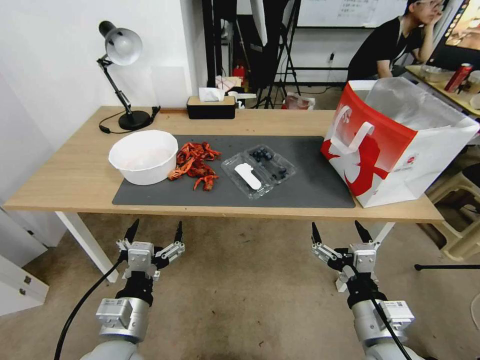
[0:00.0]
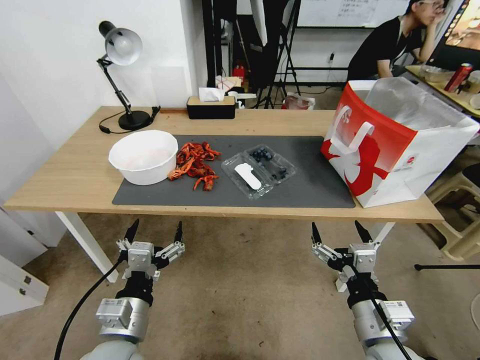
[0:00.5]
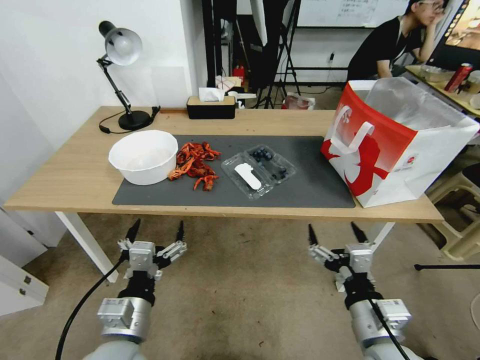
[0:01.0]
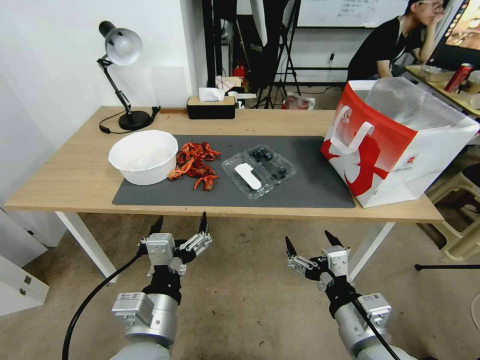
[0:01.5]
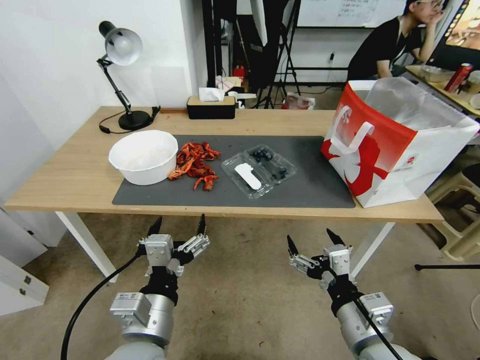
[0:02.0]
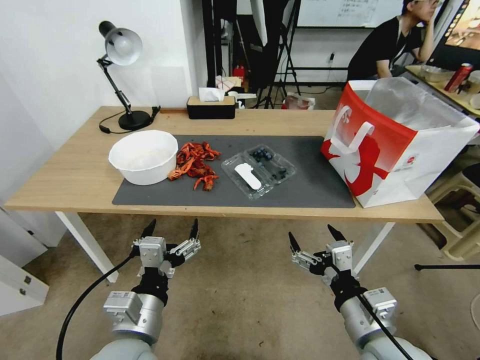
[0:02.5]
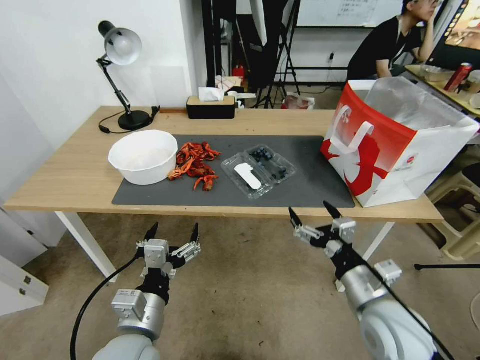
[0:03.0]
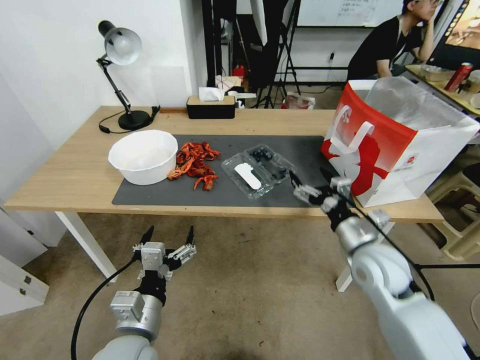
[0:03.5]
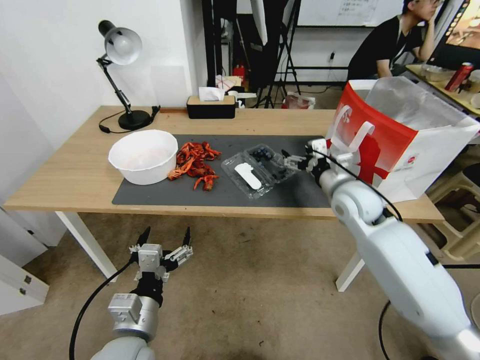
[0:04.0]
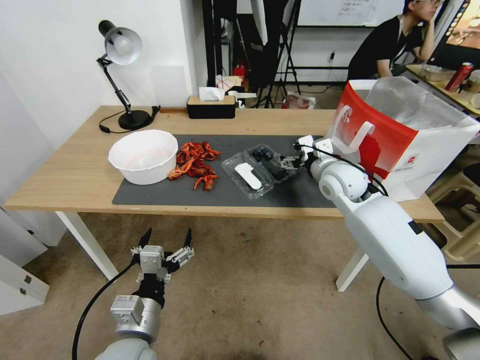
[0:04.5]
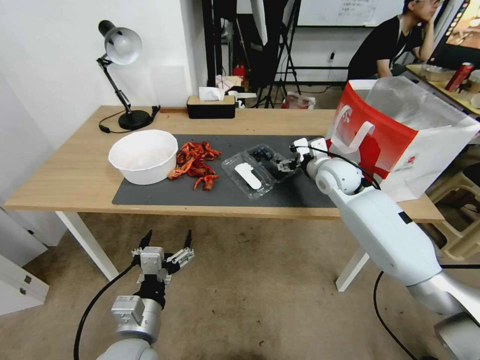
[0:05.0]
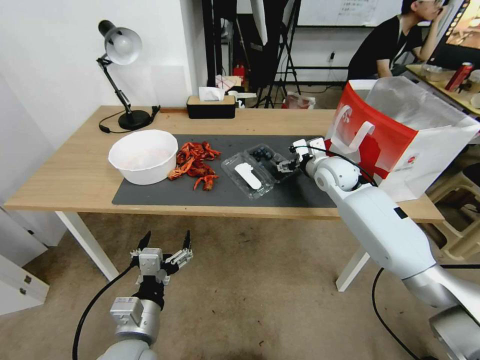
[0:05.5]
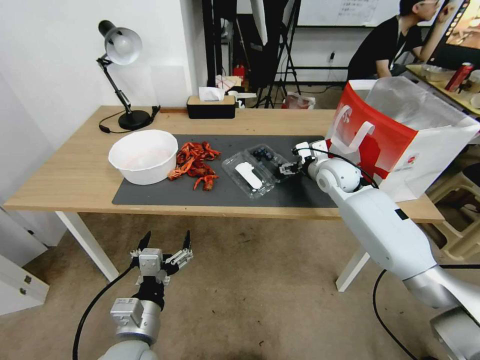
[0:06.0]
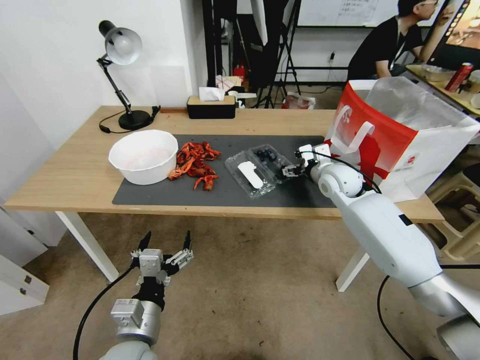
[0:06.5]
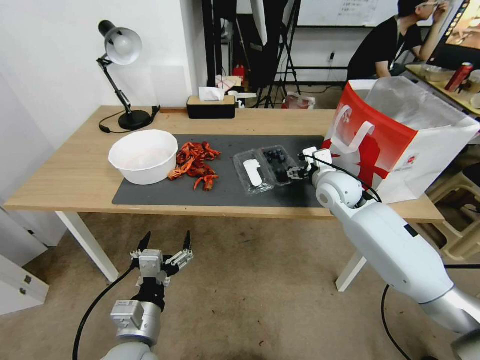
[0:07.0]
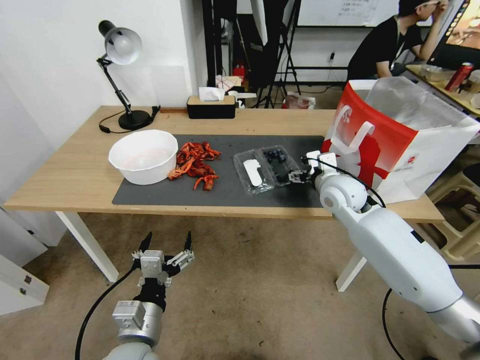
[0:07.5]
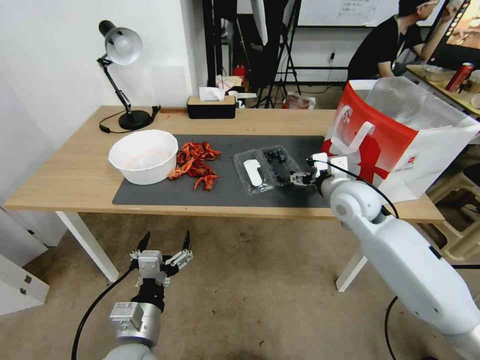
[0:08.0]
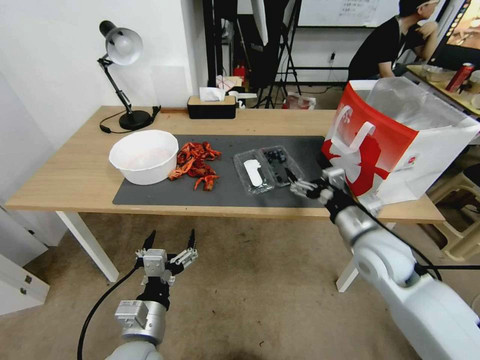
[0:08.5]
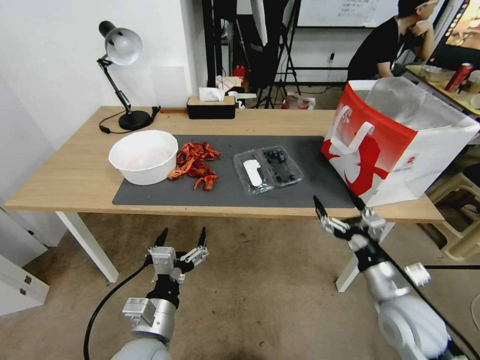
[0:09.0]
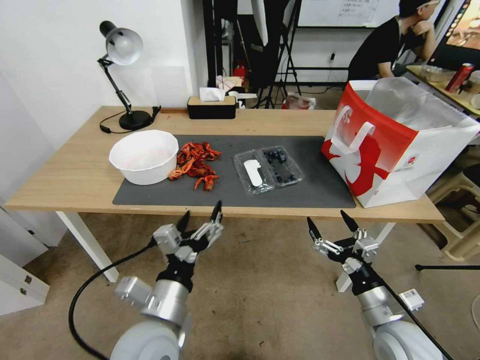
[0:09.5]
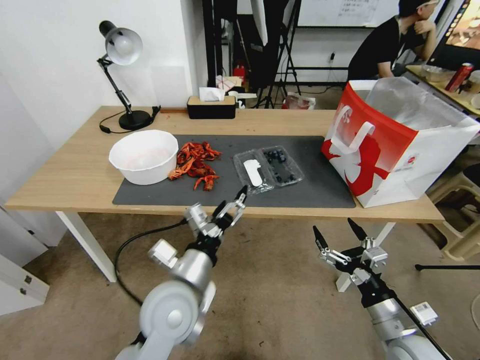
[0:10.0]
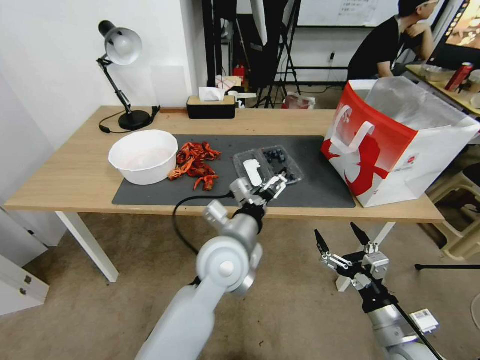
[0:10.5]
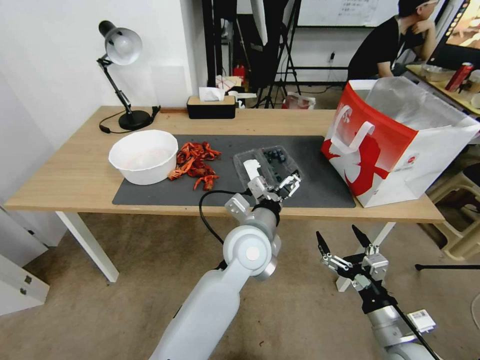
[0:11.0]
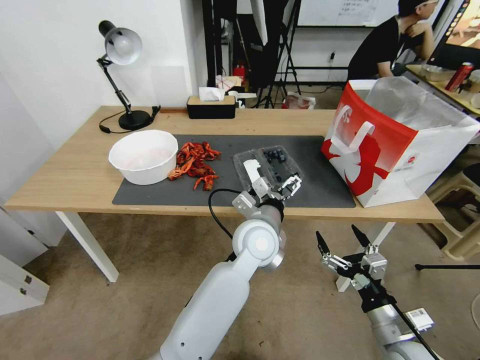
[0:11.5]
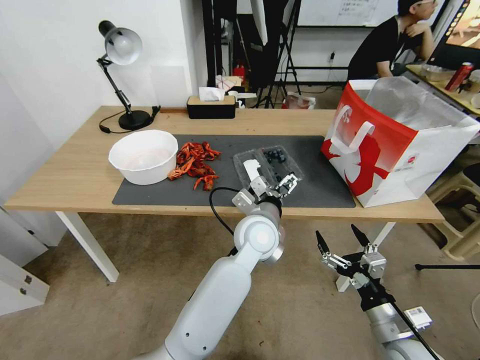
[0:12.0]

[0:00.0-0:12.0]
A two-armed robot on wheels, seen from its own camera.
Task of the whole recording: Close the takeout container lid, then place the container into the takeout bag.
0:02.0 to 0:04.0: The left gripper moves downward, about 5 cm. The right gripper moves forward, approximately 30 cm.
0:04.0 to 0:06.0: The right gripper is displaced forward by approximately 10 cm.
0:06.0 to 0:08.0: The right gripper heads backward, covering approximately 10 cm.
0:08.0 to 0:10.0: The left gripper is displaced forward, to the right and upward by about 10 cm; the right gripper shifts roughly 30 cm backward and downward.
0:10.0 to 0:12.0: The left gripper travels to the right and forward by about 20 cm.

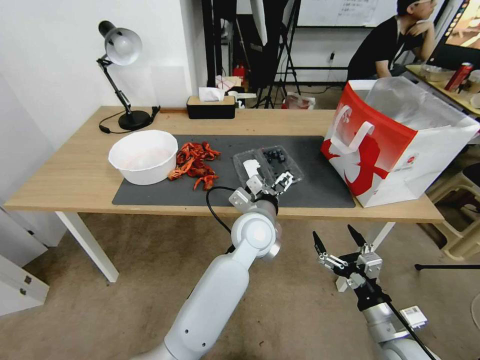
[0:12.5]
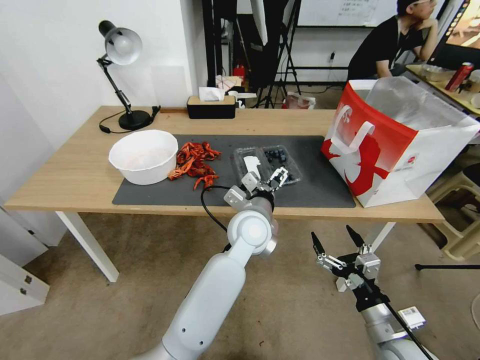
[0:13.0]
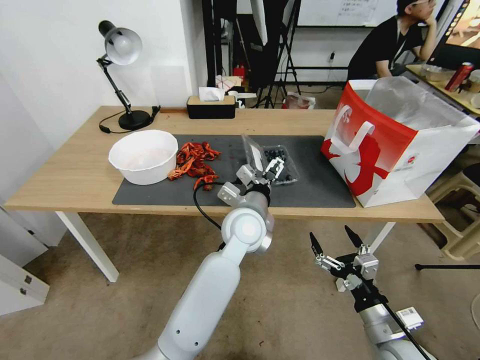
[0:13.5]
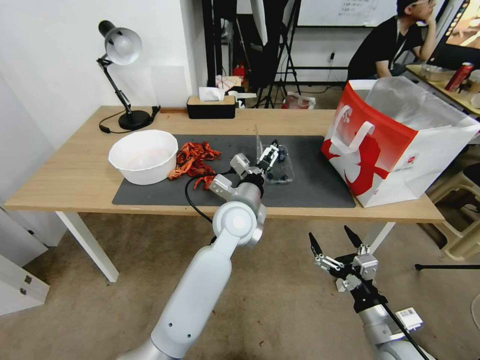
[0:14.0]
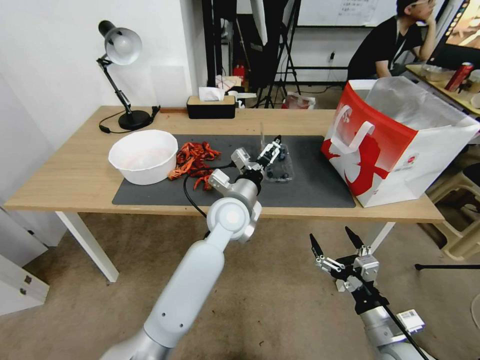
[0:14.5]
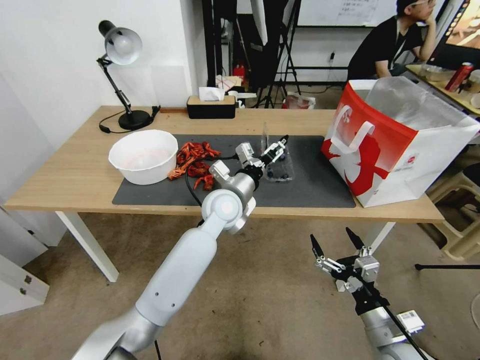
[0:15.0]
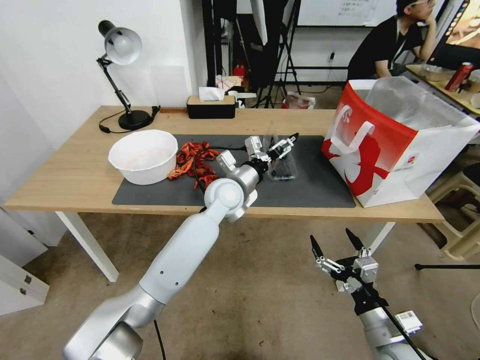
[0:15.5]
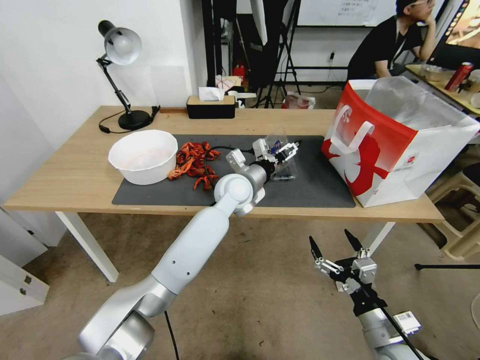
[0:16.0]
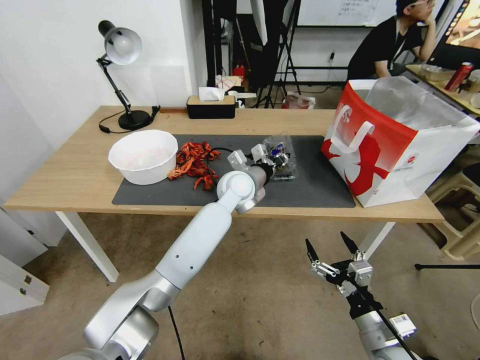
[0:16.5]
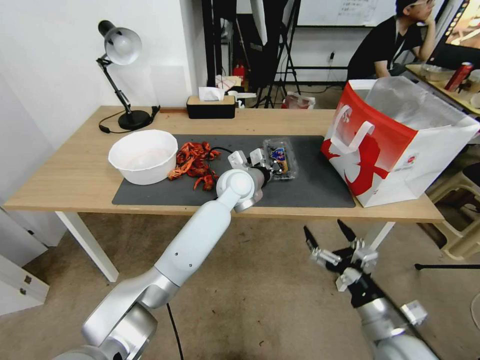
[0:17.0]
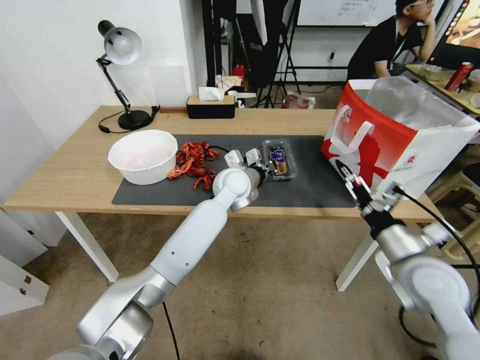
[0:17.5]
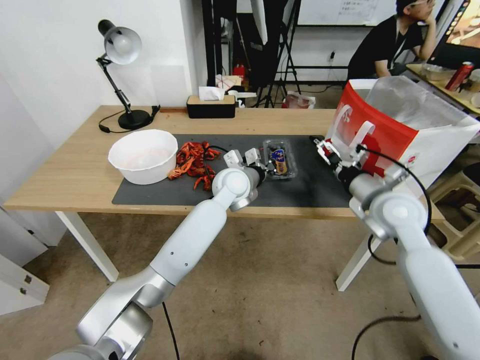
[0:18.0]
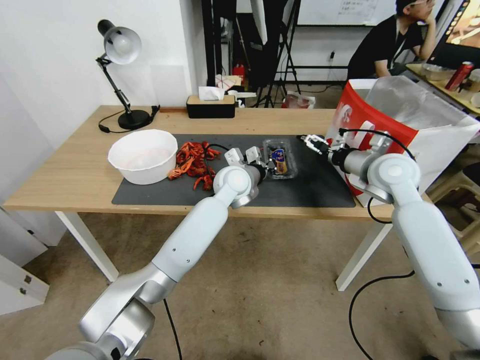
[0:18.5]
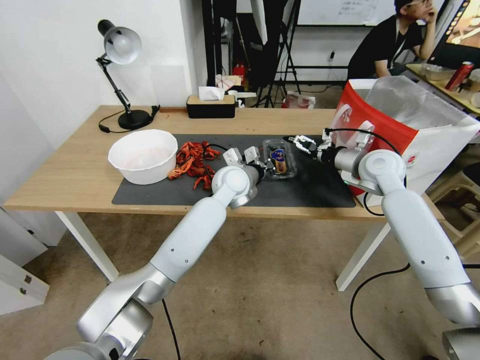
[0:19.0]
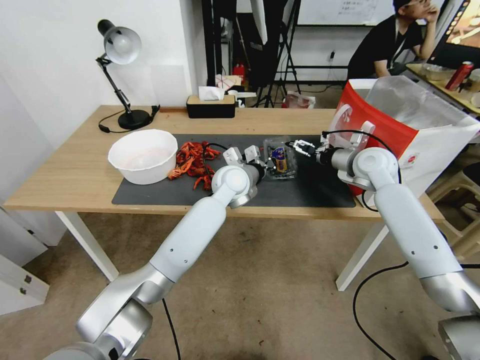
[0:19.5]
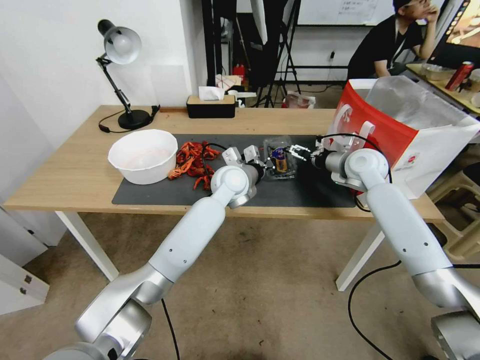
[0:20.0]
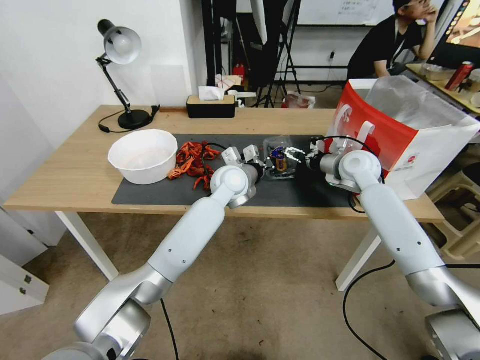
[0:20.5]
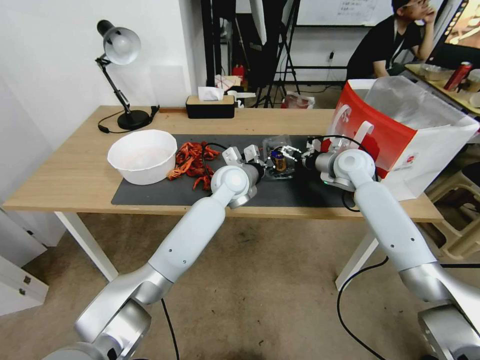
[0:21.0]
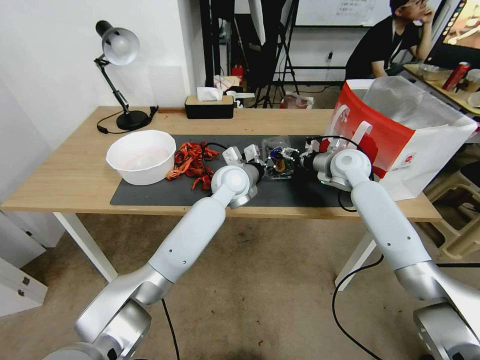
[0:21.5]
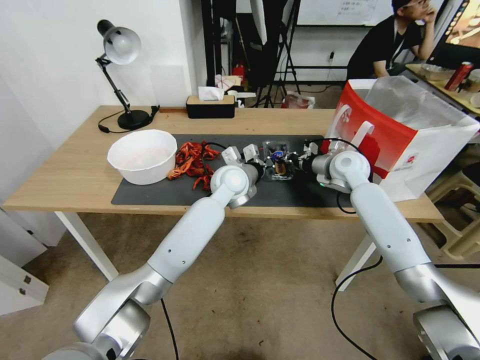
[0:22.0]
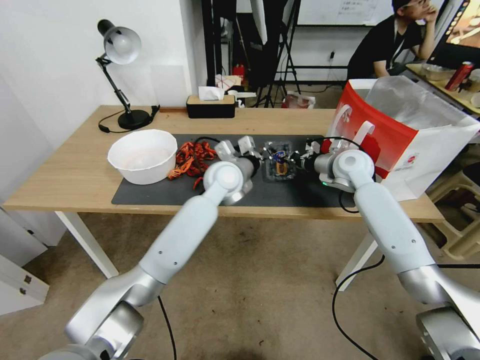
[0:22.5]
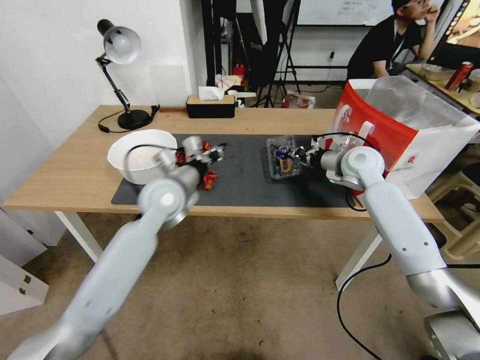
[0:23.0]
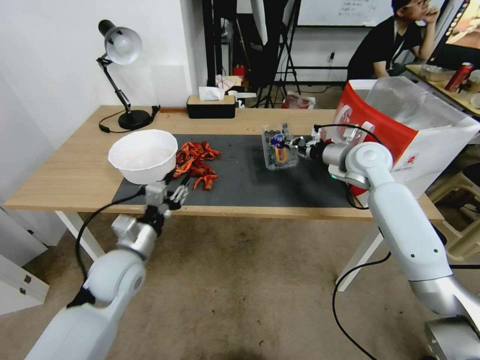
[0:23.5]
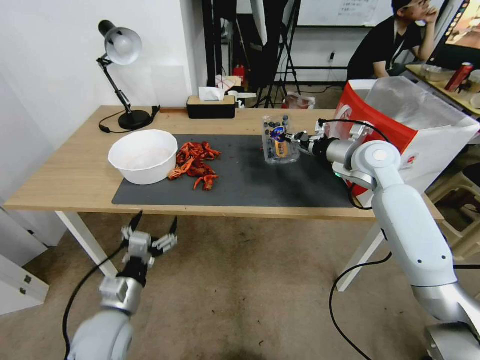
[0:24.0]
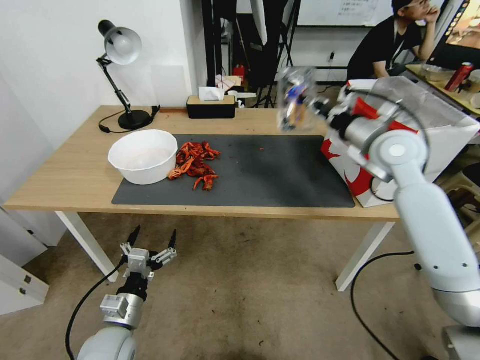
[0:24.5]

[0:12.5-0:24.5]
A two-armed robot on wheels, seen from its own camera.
Task of the whole recording: Close the takeout container lid, then place the container into the takeout bag.
0:12.5 to 0:14.5: The left gripper moves to the left, roughly 5 cm.
0:14.5 to 0:16.5: The left gripper heads forward, covering roughly 10 cm, and closes its fingers.
0:16.5 to 0:18.5: The right gripper moves forward and upward, approximately 35 cm.
0:18.5 to 0:20.5: The right gripper shifts some 10 cm forward and downward.
0:20.5 to 0:22.5: The right gripper closes its fingers.
0:22.5 to 0:24.5: The right gripper heads upward and backward, covering approximately 15 cm. Meanwhile the left gripper travels backward, to the left and downward by about 40 cm, and opens.

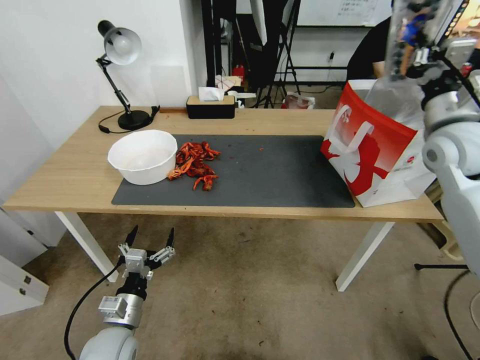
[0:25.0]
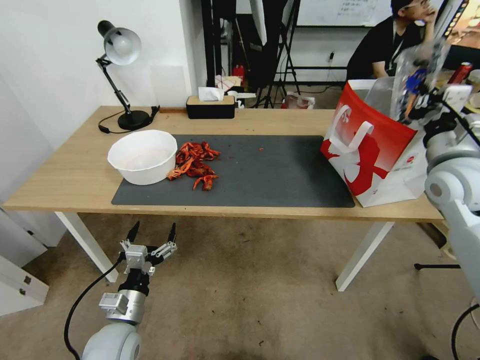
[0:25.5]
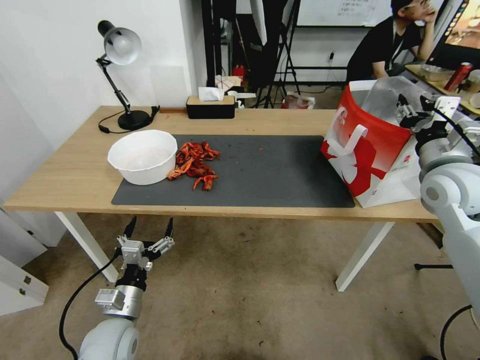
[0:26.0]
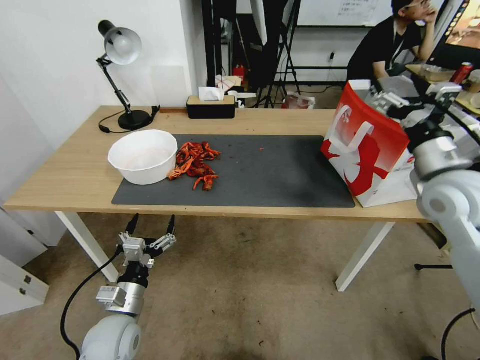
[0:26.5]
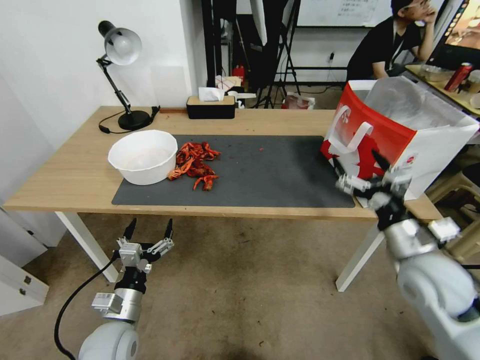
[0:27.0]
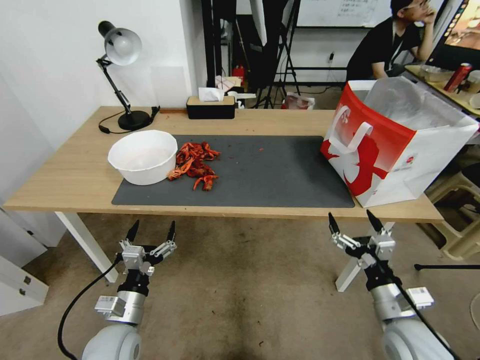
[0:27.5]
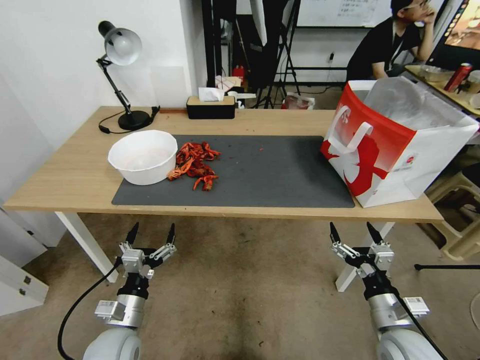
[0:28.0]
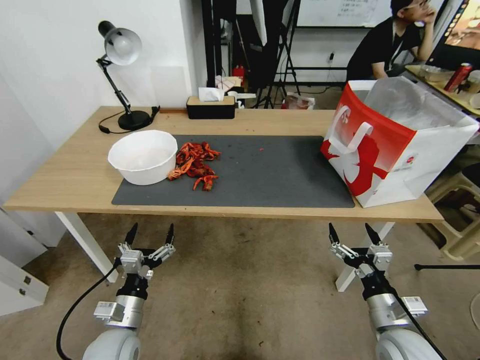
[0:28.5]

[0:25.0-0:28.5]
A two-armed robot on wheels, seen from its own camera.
Task of the whole recording: Close the takeout container lid, then place the container into the takeout bag.
0:25.0 to 0:27.0: The right gripper goes some 25 cm backward and downward, and opens.
0:27.0 to 0:28.5: The right gripper goes about 15 cm downward and backward.
